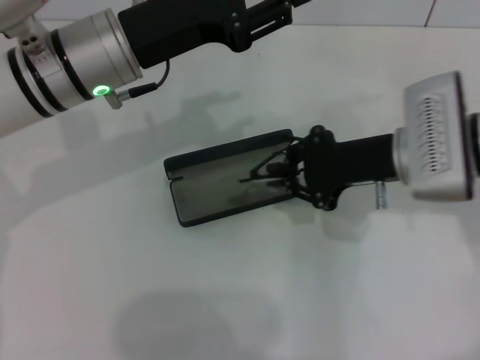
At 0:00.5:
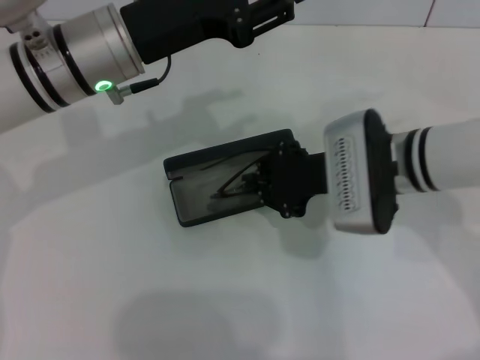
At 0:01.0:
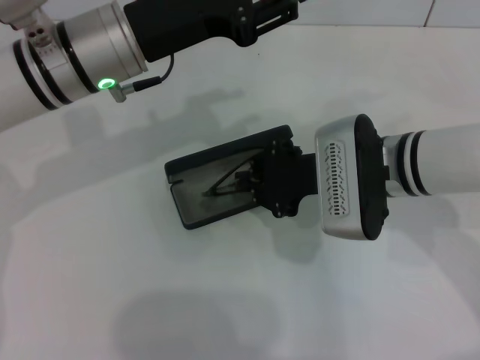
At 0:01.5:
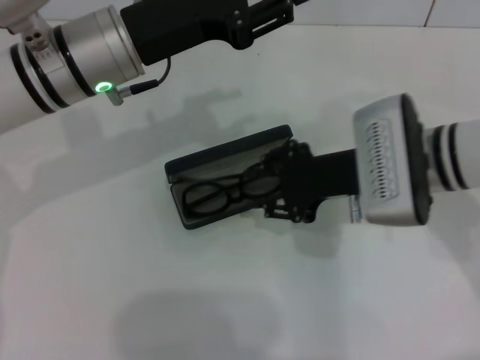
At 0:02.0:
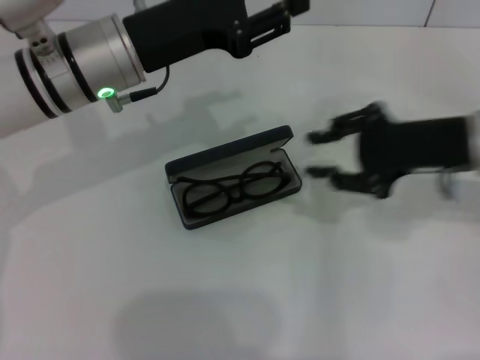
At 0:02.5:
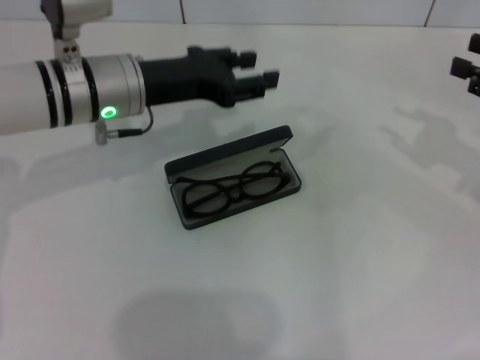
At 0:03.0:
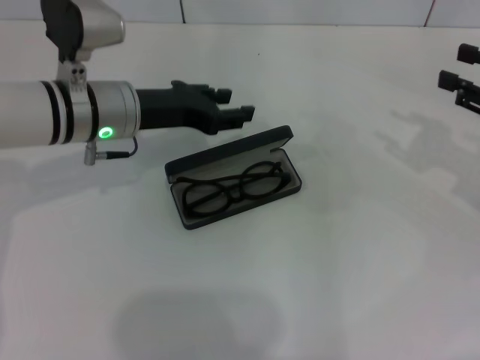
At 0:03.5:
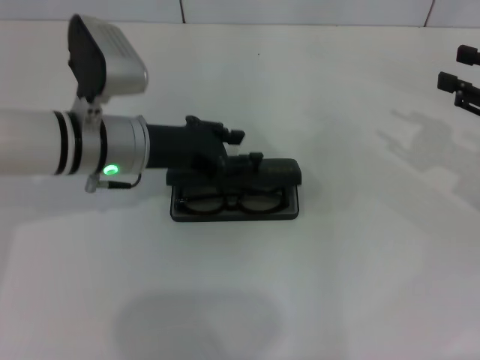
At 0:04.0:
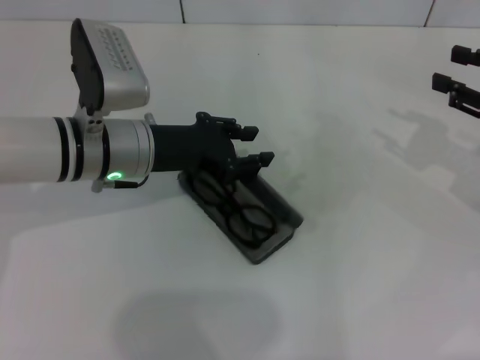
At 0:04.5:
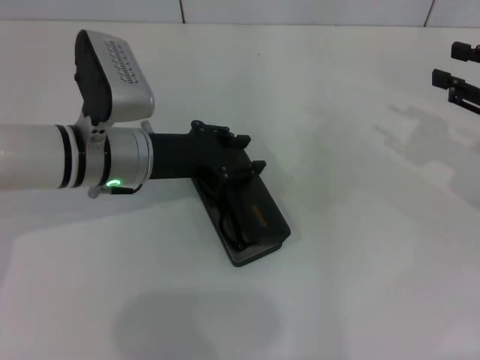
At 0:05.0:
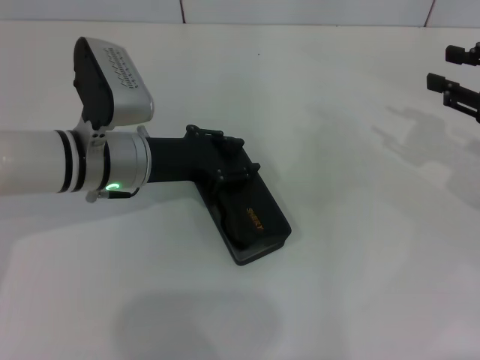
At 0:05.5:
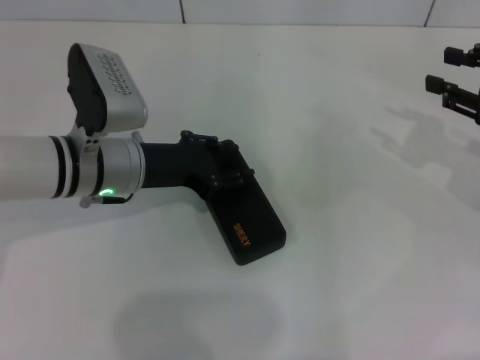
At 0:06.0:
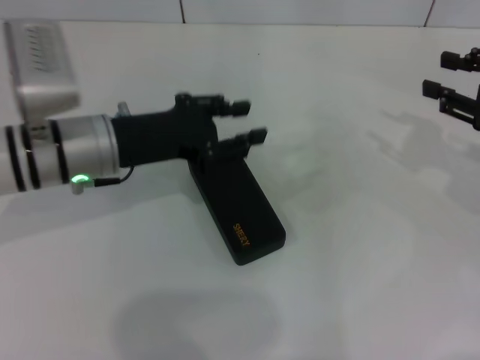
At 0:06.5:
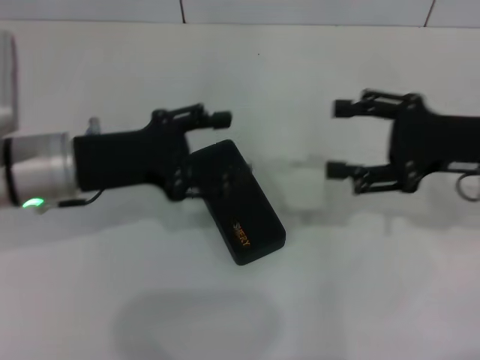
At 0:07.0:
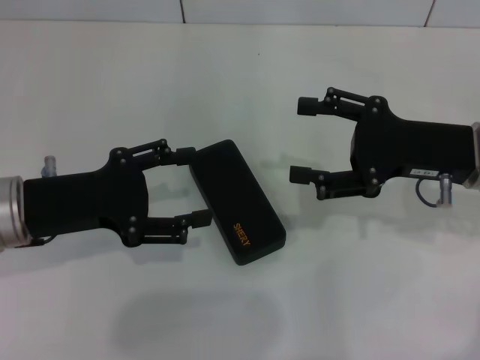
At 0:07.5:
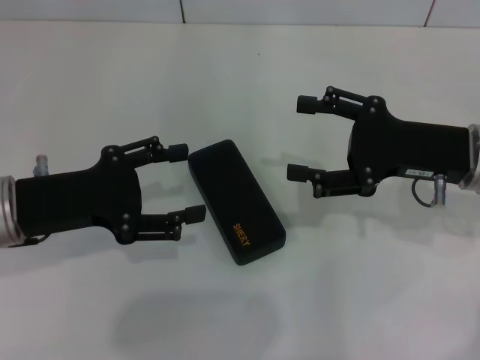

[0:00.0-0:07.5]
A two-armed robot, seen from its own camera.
Step, 0:00.0 to 0:01.5: Put the glasses into the case with your right hand.
Step, 0:02.0 to 0:05.5: Close the glasses case with your left hand.
0:00.0 to 0:02.0: The right gripper shifts roughly 5 cm to the right, and opens its fingers.
0:02.0 to 0:04.0: The left gripper travels downward by some 5 cm; the right gripper goes roughly 10 cm to the right.
0:04.0 to 0:05.5: There are only small adjustments of the grippers.
0:05.5 to 0:07.5: The left gripper heads to the left and backward, covering about 10 cm, and opens. Meanwhile the right gripper is displaced to the left by about 10 cm, and opens.
